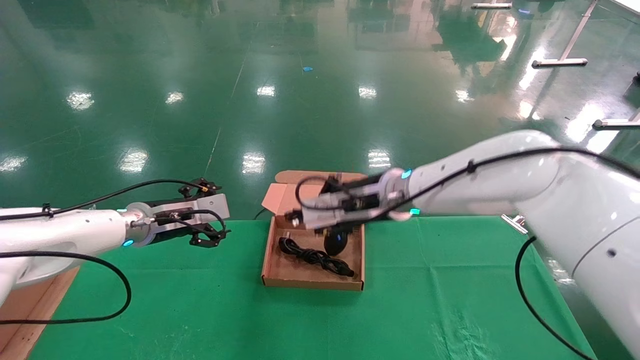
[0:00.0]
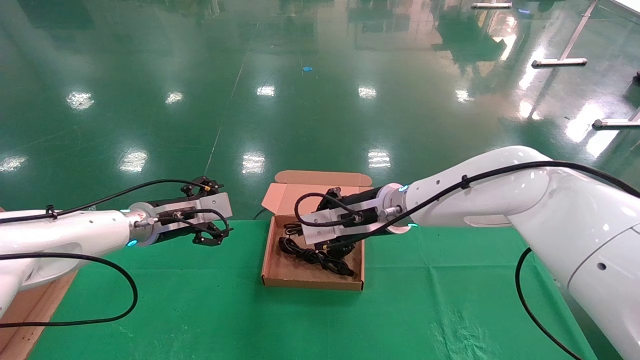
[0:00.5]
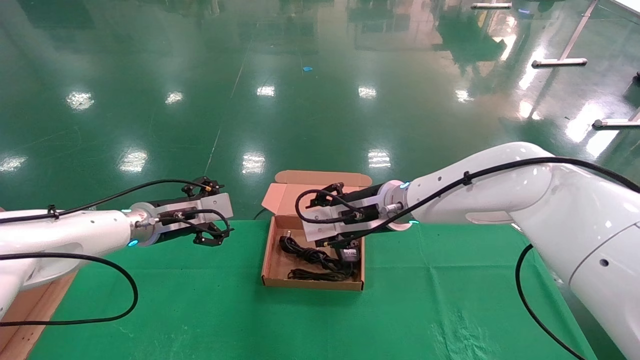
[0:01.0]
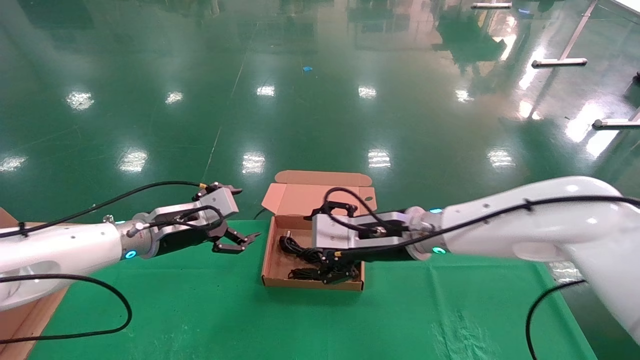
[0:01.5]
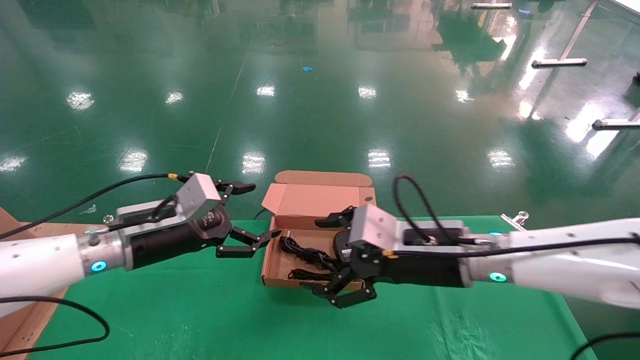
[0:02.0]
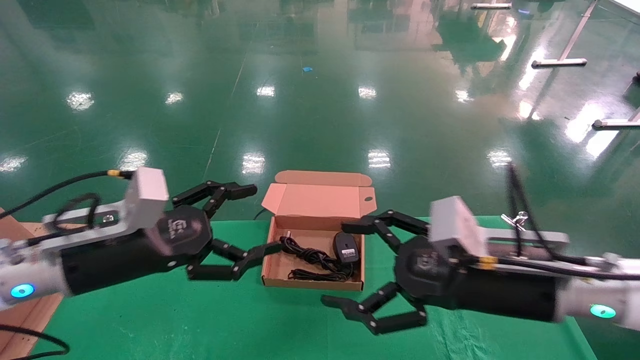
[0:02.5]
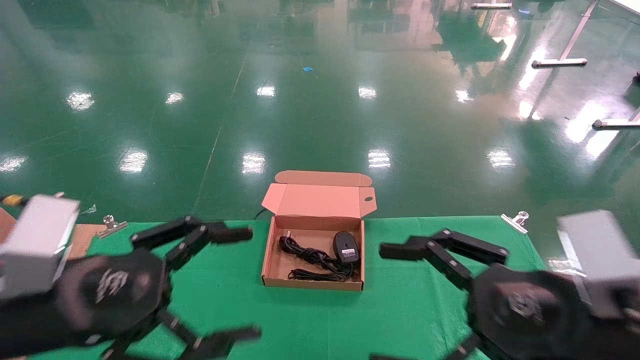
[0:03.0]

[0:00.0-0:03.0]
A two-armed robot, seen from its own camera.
0:00.0 to 0:01.5: The right gripper moves some 5 cm, and opens its fingers.
0:01.5 to 0:03.0: The left gripper is displaced backward by some 25 cm, while the right gripper goes about 25 cm backward and to the right.
